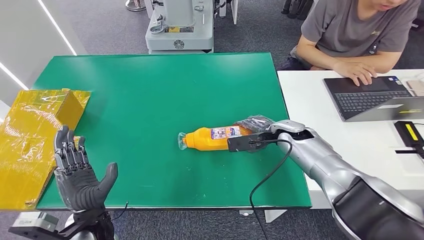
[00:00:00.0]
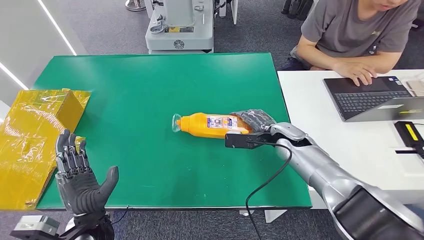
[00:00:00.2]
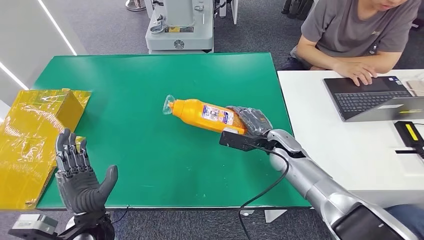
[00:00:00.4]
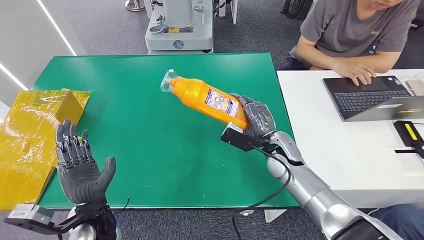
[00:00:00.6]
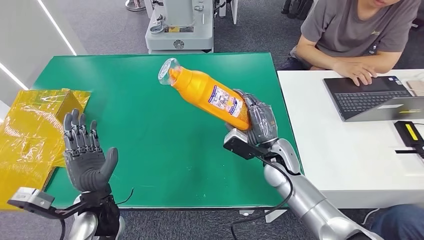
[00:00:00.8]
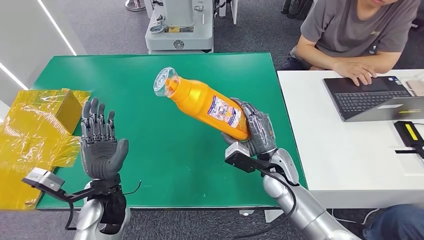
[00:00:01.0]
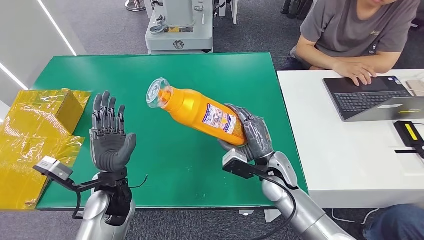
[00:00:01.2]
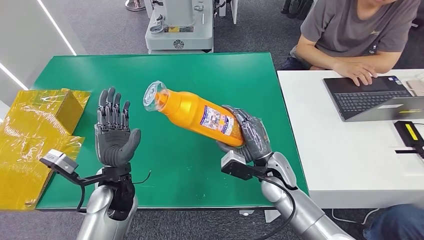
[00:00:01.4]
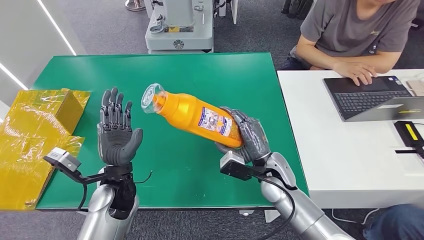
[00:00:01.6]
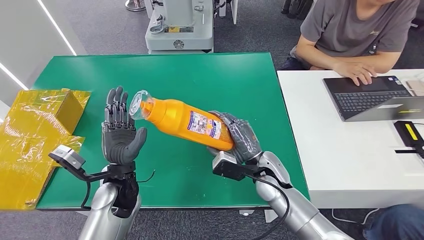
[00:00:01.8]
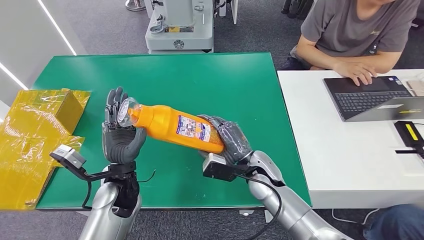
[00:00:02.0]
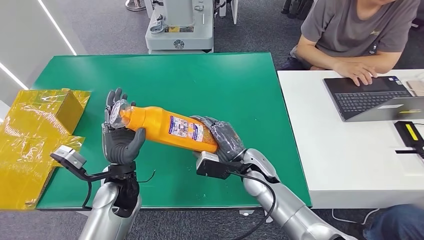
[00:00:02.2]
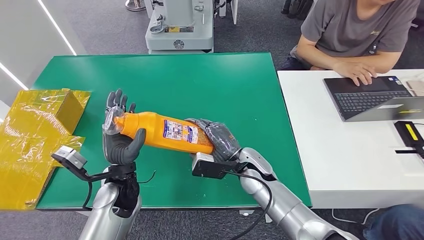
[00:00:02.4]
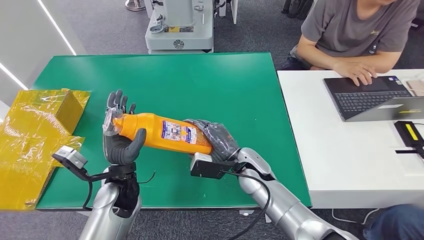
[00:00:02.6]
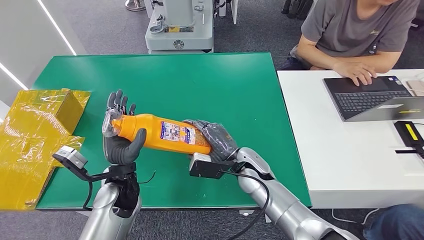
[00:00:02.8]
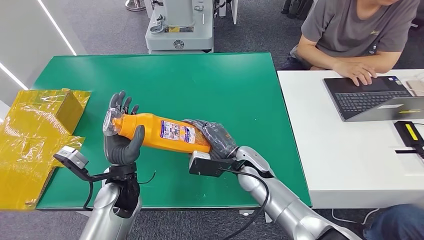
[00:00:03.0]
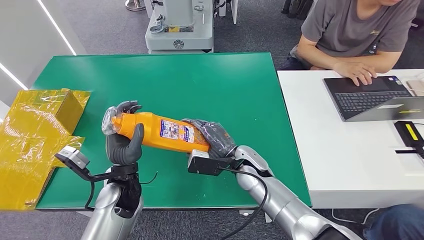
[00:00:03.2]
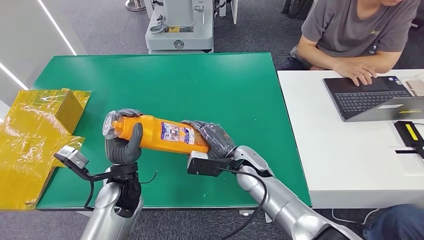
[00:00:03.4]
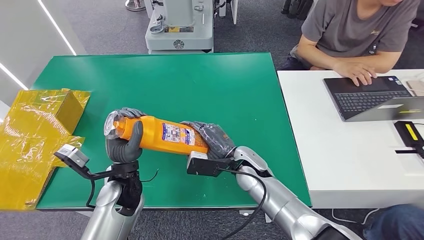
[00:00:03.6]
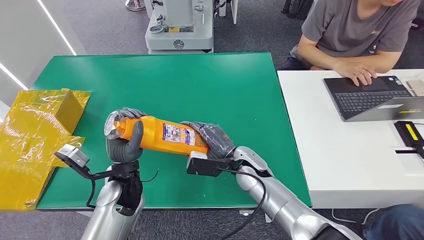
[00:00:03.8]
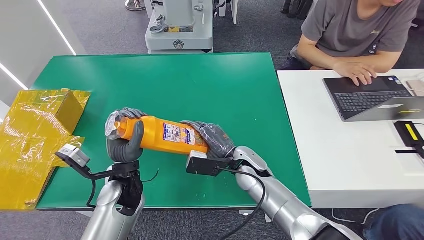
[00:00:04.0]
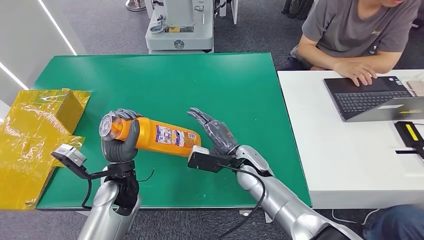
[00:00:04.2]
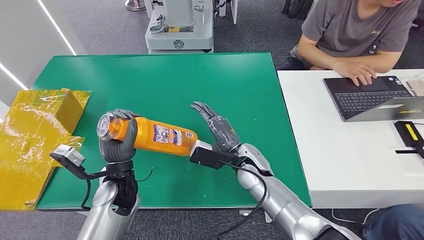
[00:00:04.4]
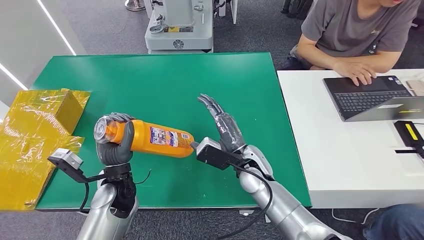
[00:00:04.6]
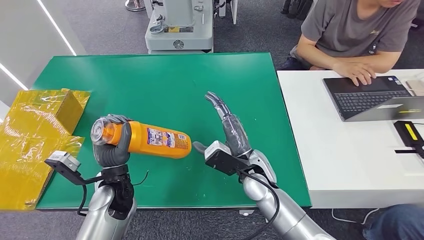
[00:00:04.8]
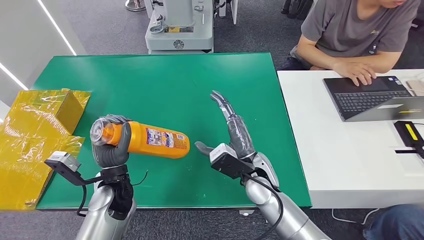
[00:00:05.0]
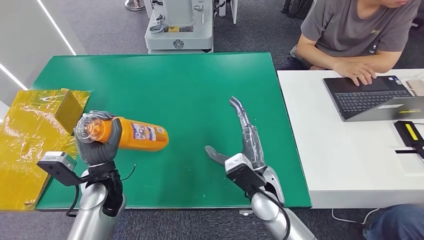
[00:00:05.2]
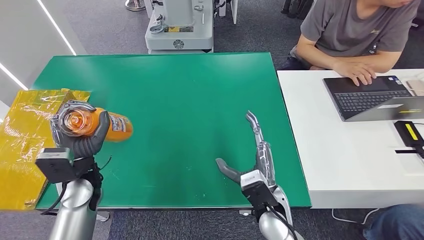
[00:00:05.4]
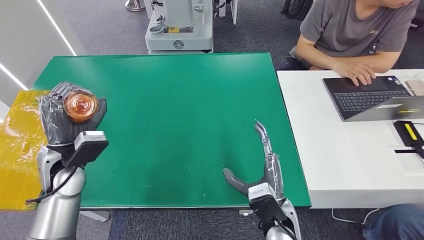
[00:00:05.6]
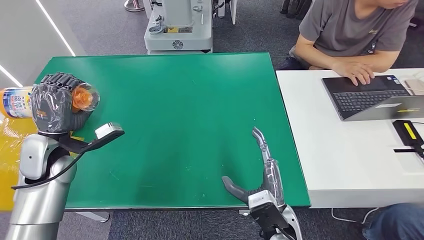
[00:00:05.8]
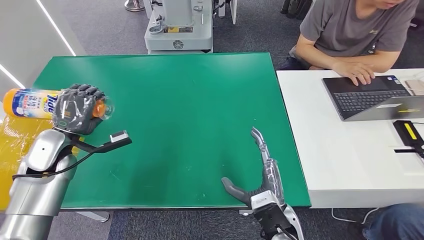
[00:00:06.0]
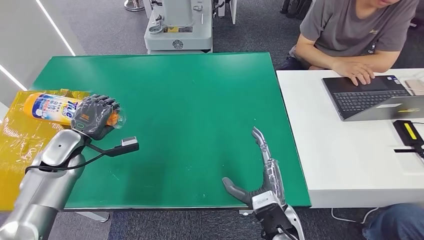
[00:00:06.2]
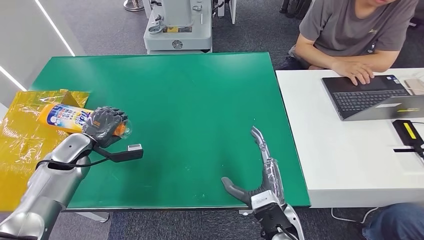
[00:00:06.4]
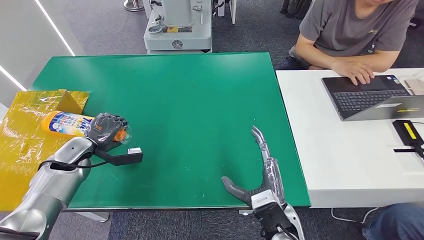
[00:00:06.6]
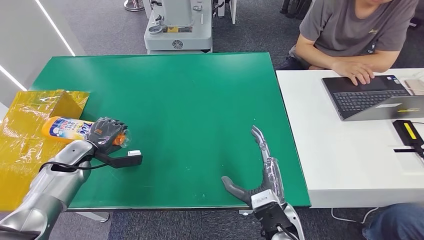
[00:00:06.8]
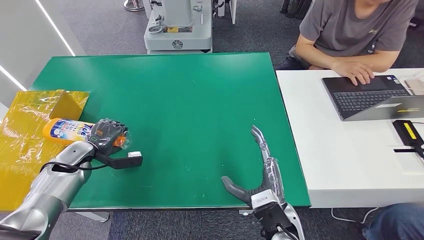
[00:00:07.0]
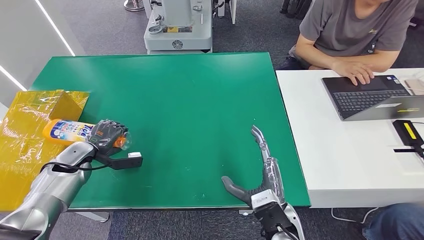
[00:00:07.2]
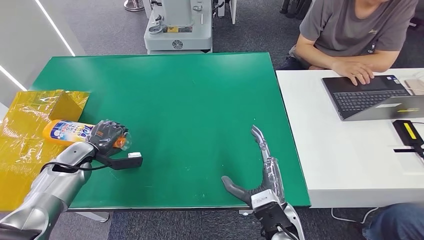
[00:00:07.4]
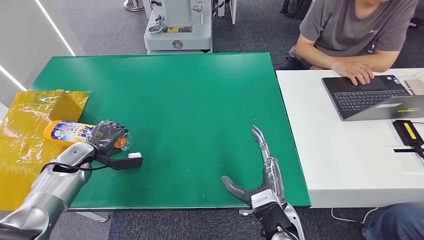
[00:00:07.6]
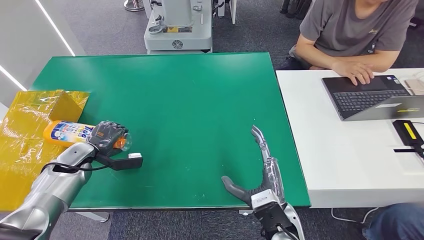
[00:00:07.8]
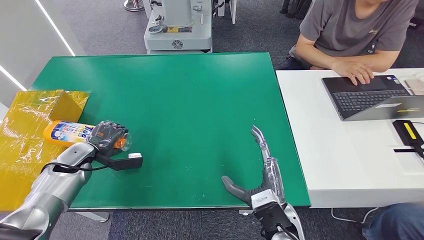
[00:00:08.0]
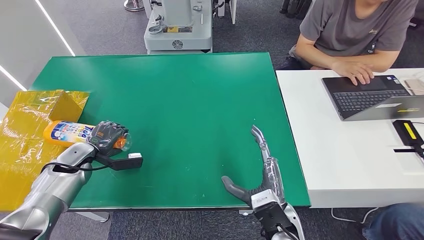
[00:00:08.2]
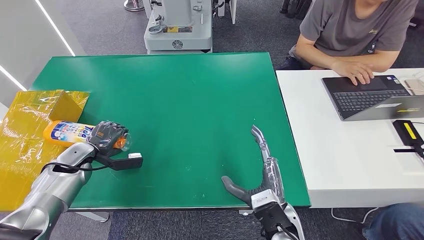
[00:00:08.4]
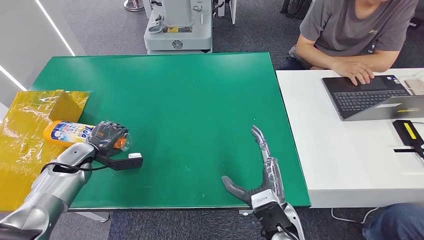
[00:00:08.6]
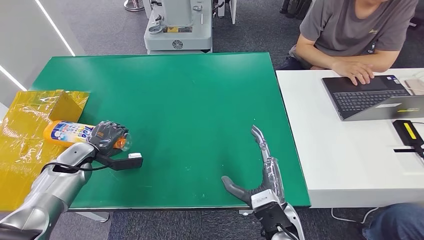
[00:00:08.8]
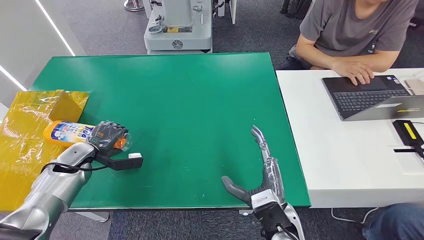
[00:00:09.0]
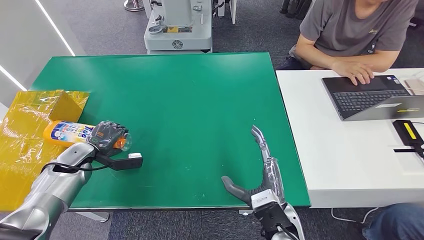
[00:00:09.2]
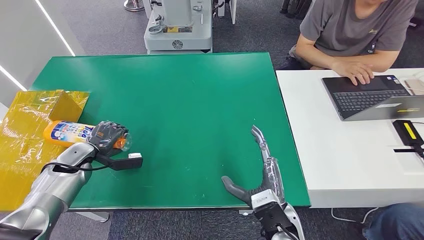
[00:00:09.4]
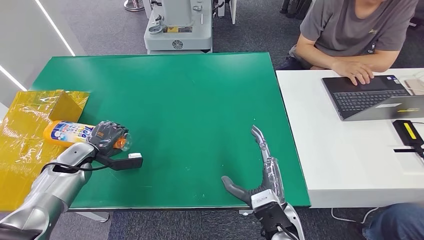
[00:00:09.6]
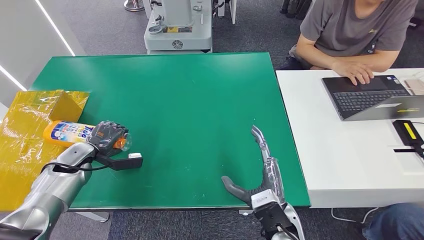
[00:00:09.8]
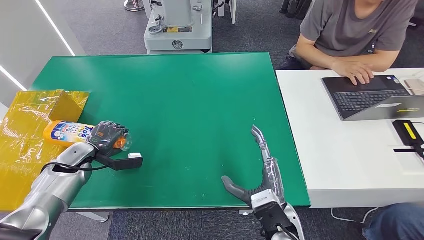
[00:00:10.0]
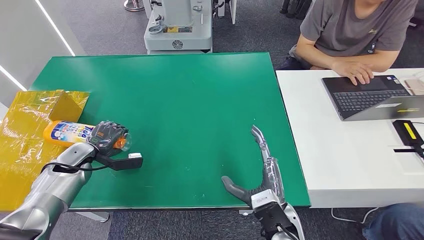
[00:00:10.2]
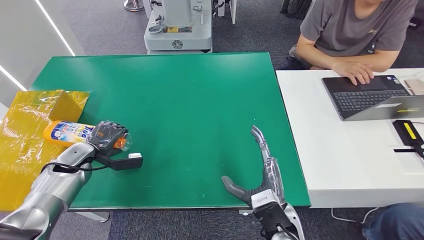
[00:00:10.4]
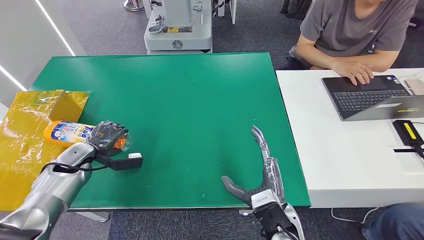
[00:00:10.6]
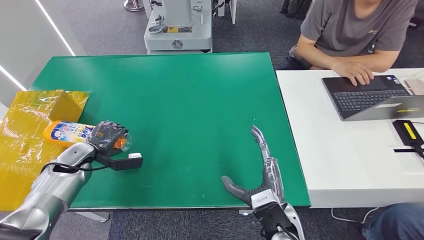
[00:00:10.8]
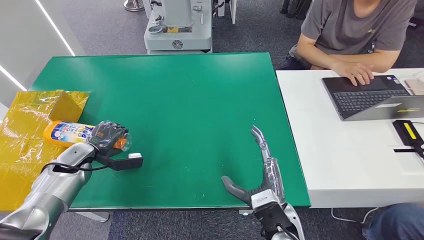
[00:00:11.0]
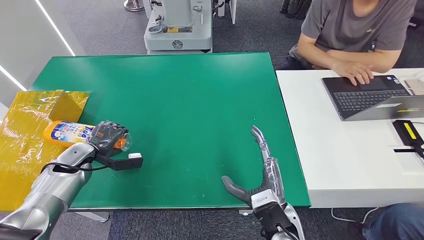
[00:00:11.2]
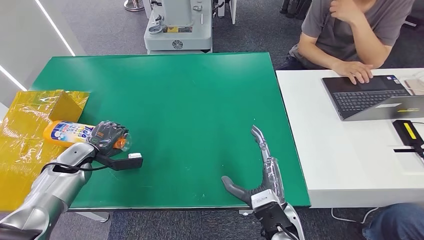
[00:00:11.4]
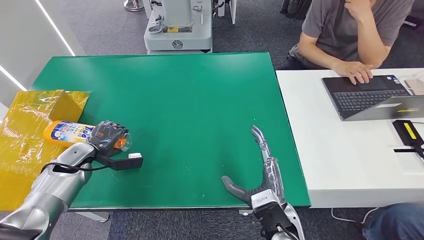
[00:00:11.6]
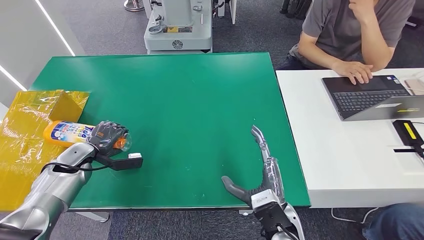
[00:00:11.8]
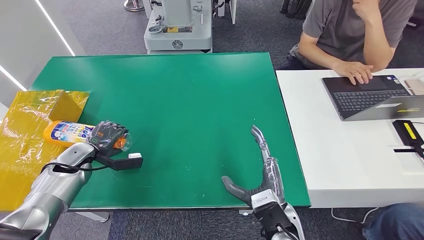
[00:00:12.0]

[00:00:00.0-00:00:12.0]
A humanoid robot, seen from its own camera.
00:00:01.6 to 00:00:03.0: The right hand moves to the left, some 5 cm.
00:00:03.0 to 00:00:04.4: The hands make only small movements.
00:00:06.0 to 00:00:07.6: The left hand moves downward, about 10 cm.
00:00:07.6 to 00:00:12.0: Both hands stay about where they are.

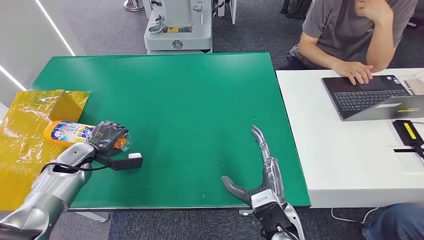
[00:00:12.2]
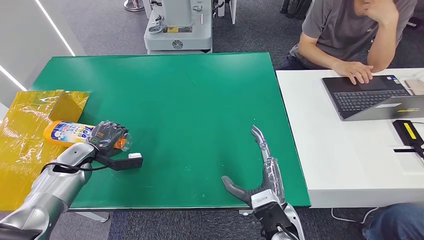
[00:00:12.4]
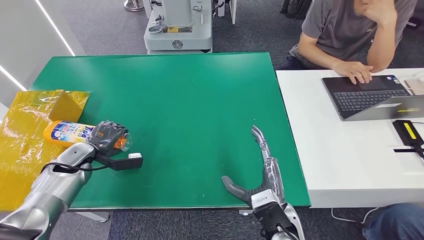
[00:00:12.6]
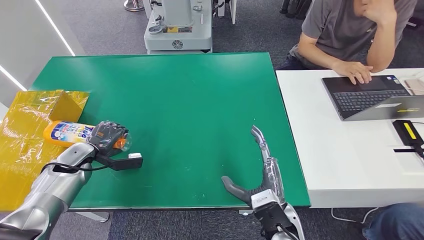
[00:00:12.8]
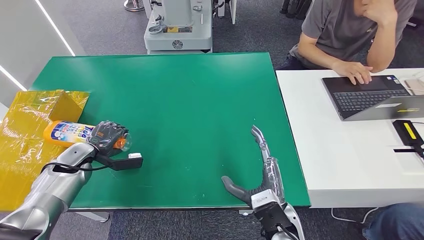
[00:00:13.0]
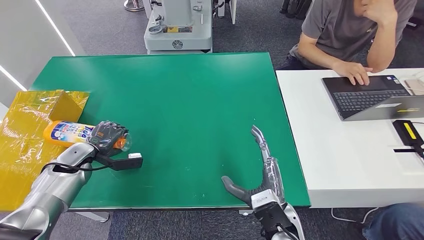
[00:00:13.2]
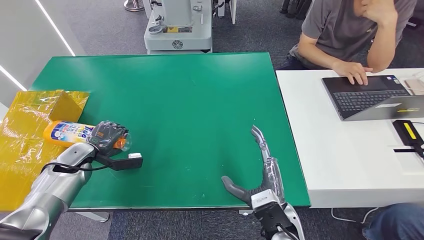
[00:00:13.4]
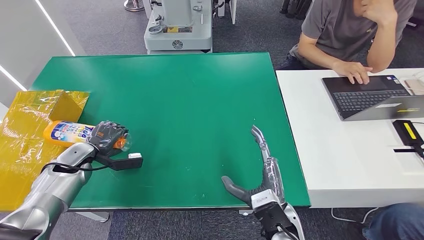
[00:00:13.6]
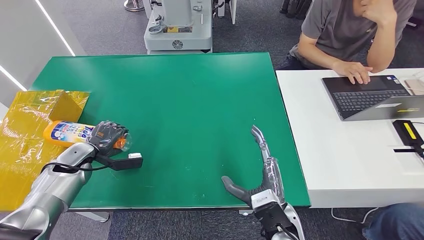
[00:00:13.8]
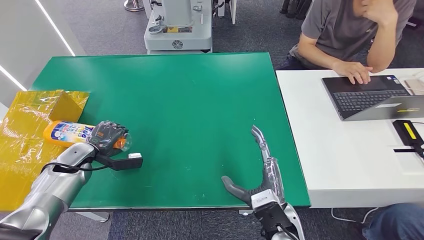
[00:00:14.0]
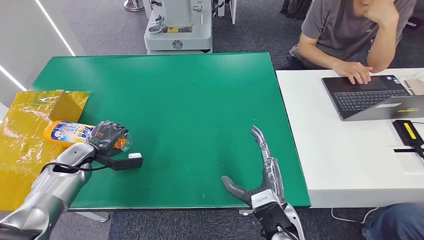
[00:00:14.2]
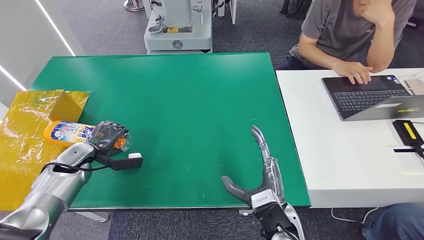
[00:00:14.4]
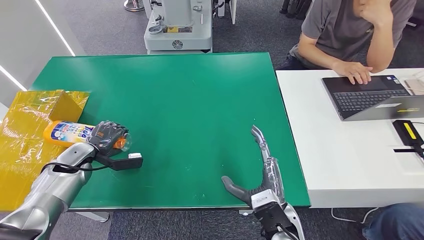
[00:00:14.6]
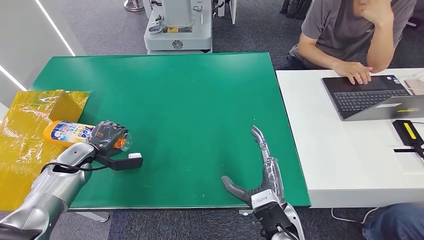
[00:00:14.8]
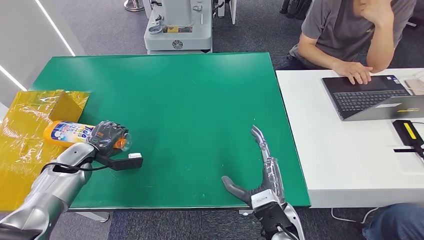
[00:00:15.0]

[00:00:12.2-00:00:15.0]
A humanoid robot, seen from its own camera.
00:00:12.2 to 00:00:15.0: Both hands stay put.
